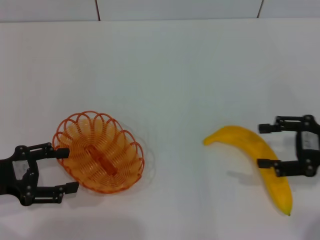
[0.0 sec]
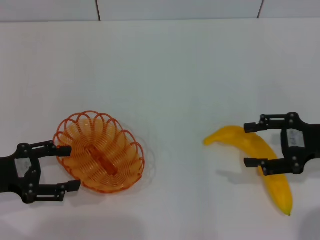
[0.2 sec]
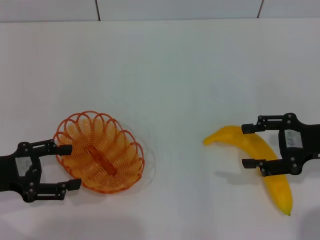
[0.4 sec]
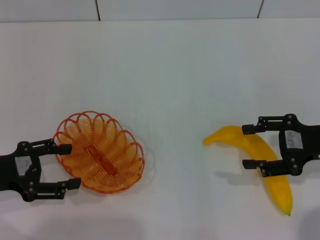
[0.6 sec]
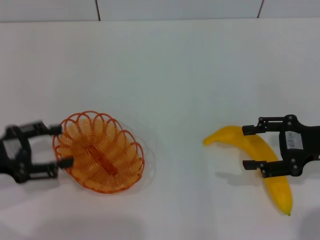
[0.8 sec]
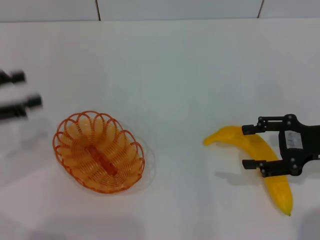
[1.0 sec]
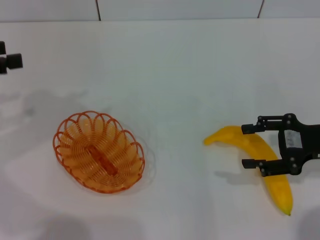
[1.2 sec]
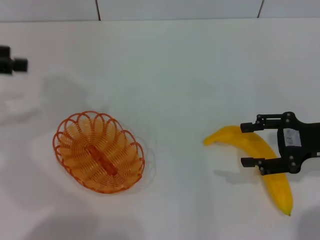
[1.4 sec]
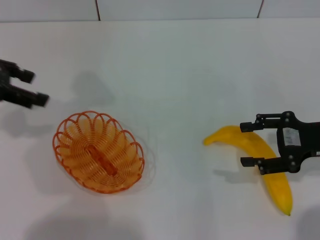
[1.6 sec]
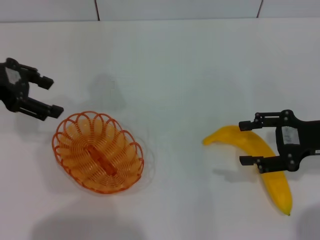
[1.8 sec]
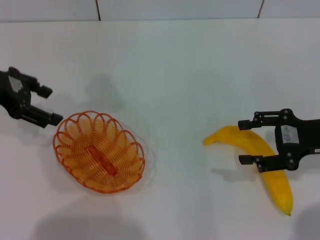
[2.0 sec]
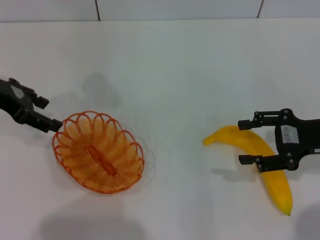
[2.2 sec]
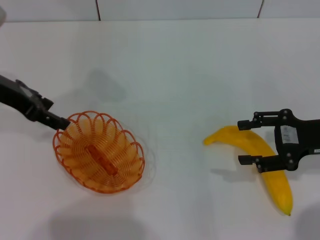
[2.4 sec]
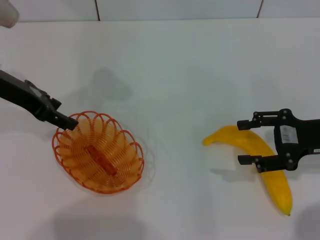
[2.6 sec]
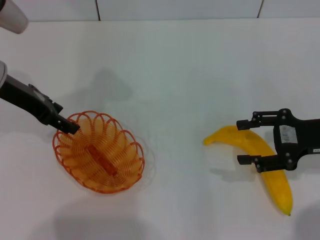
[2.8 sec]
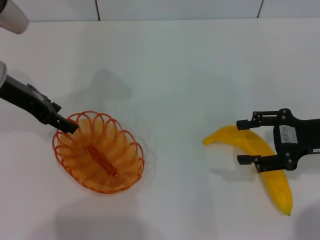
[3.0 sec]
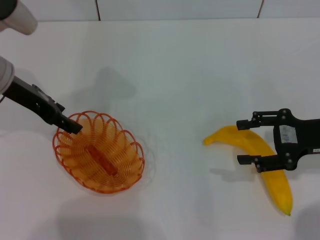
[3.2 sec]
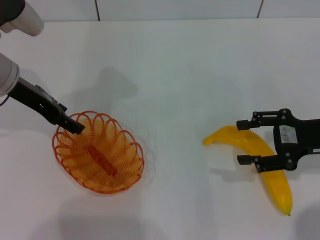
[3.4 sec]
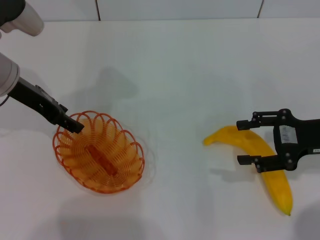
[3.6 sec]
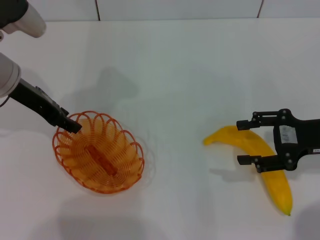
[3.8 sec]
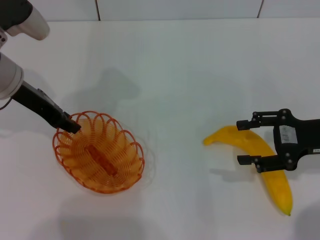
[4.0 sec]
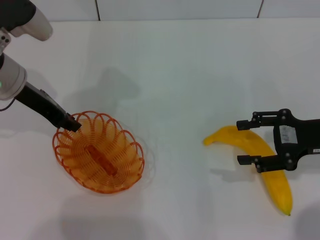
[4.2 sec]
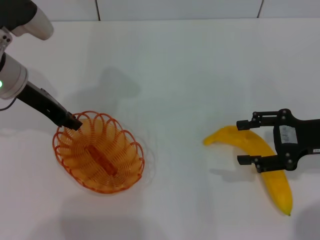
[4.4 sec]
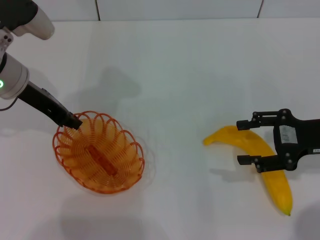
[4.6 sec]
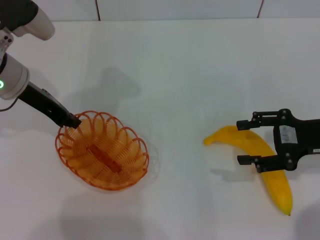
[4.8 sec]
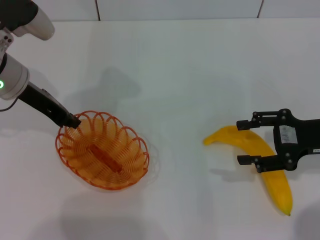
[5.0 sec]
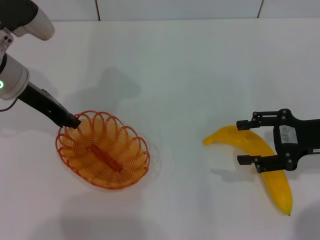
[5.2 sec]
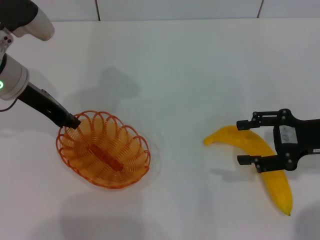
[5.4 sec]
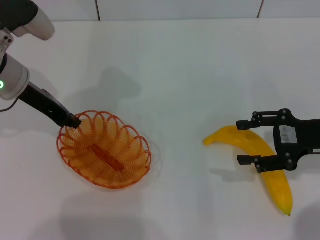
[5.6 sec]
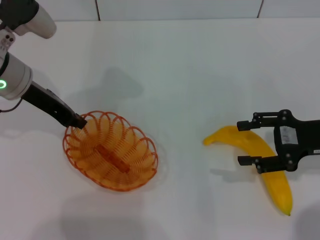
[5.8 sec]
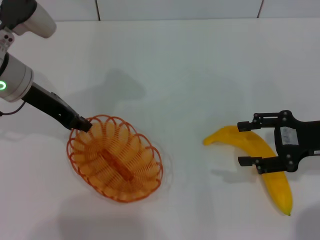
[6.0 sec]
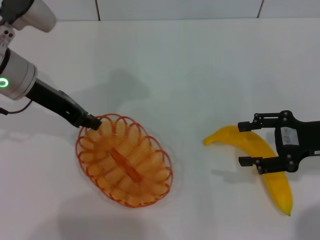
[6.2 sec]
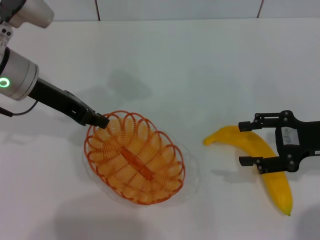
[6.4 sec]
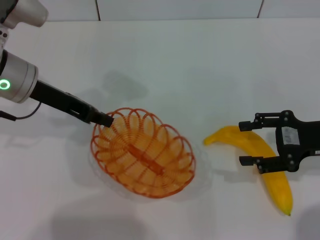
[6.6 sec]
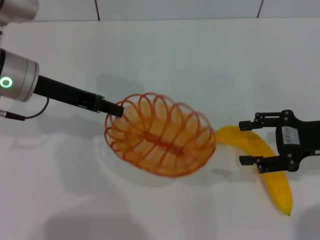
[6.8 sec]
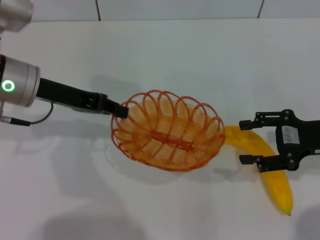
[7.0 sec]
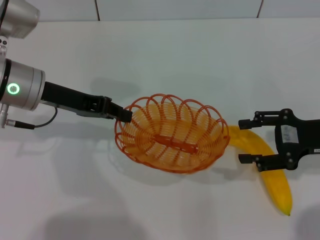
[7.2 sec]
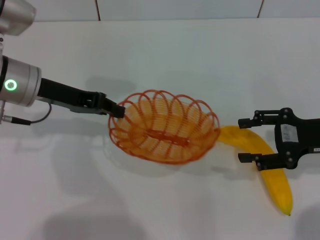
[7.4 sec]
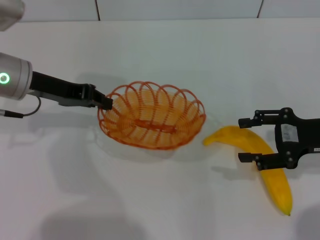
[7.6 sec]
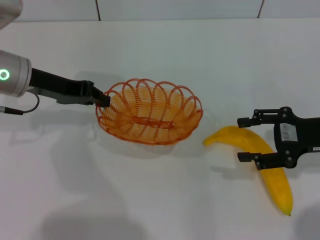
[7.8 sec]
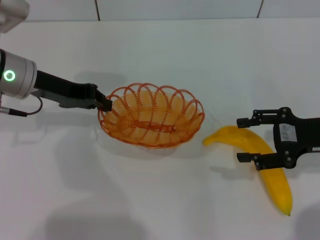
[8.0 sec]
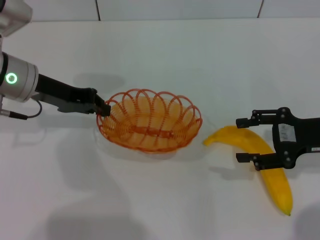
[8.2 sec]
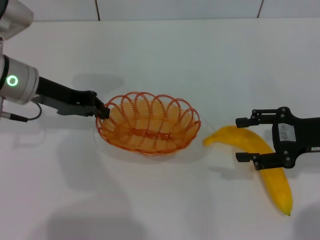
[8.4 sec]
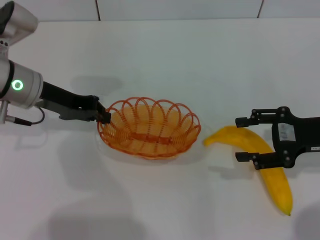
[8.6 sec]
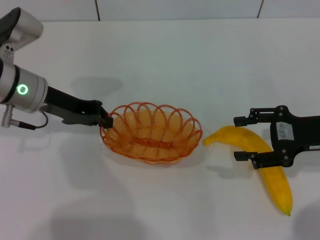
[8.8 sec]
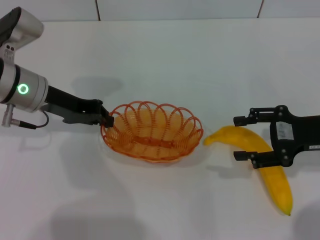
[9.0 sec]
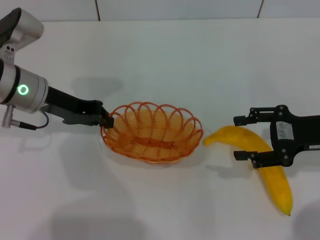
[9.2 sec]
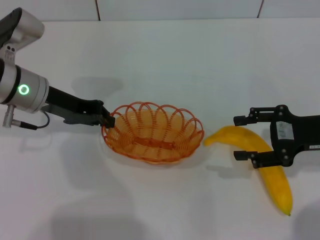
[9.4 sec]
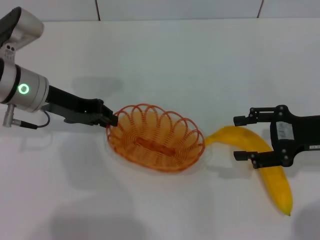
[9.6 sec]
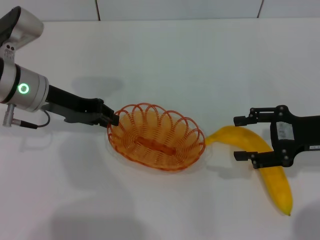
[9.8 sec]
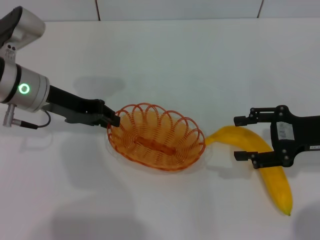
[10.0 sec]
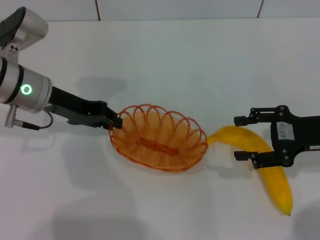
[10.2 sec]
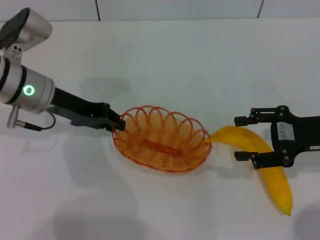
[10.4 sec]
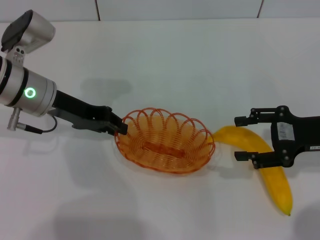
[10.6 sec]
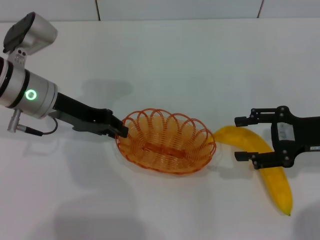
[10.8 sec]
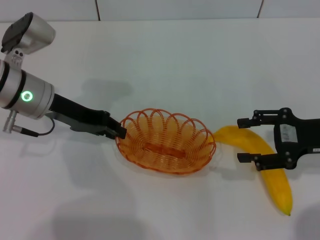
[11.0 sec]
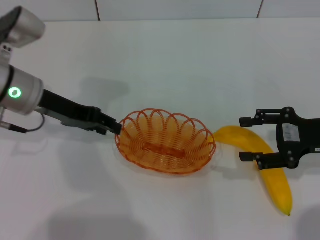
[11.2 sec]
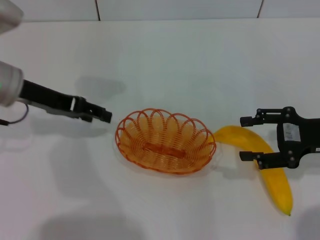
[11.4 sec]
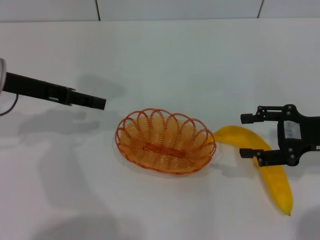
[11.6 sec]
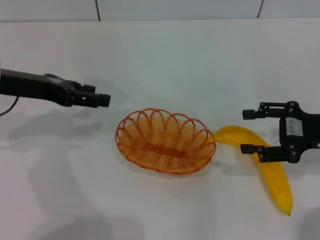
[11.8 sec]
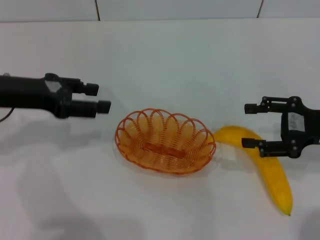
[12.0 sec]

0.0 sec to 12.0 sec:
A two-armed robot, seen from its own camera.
Step, 0.0 sec to 6.8 sec: Pick up the basket with the left gripper.
Step, 7.0 sec to 11.4 sec: Place the basket in the center of view with the left gripper.
0.0 sec to 1.6 sec: The left gripper travels upward and forward by some 20 cm.
1.6 sec to 3.0 sec: The left gripper moves to the right and downward, roughly 10 cm.
3.0 sec to 4.4 sec: The left gripper closes its fingers.
4.4 sec to 6.0 sec: The grippers stay close to where they were, moving slightly.
7.6 sec to 9.0 sec: The grippers stay close to where they were, moving slightly.
9.0 sec to 10.4 sec: Both grippers stay about where they are.
10.4 sec to 12.0 sec: The left gripper is displaced to the left by approximately 5 cm, and opens up.

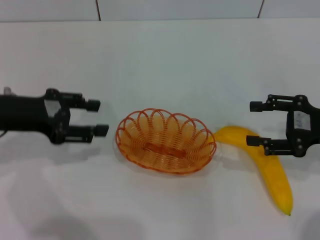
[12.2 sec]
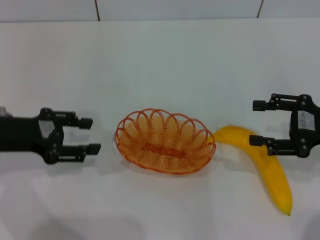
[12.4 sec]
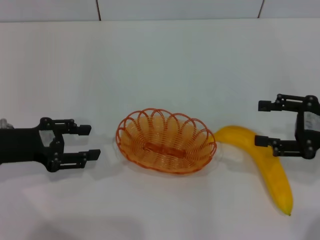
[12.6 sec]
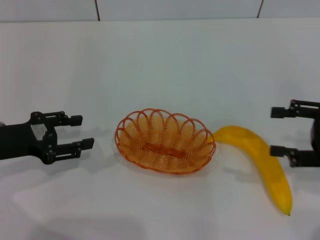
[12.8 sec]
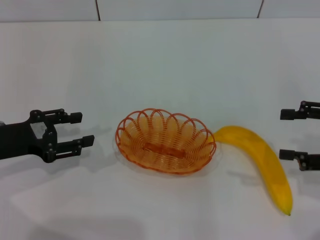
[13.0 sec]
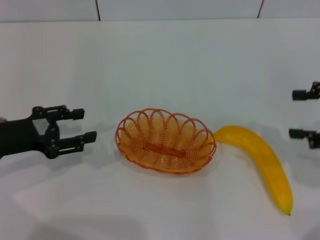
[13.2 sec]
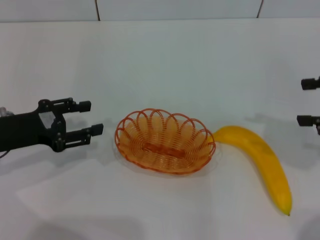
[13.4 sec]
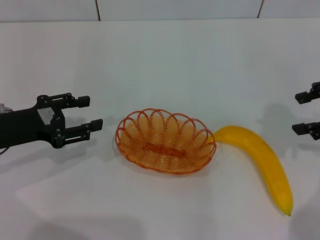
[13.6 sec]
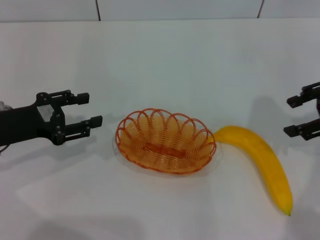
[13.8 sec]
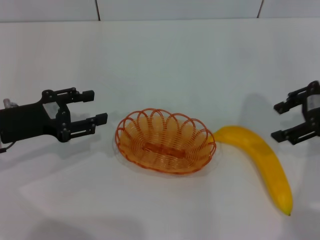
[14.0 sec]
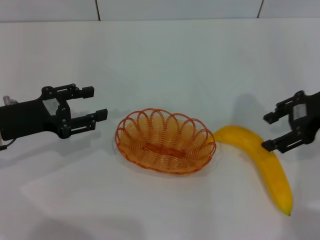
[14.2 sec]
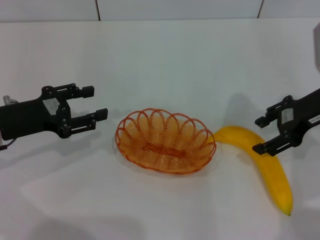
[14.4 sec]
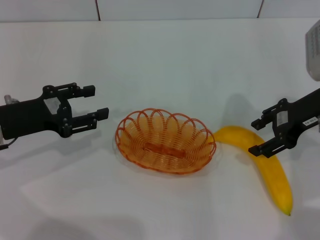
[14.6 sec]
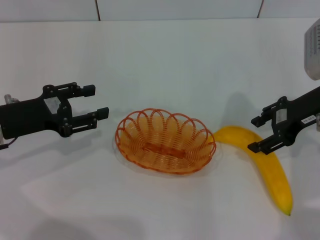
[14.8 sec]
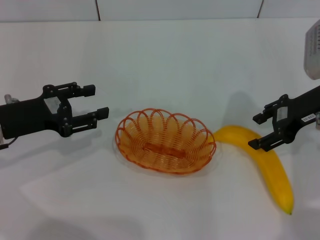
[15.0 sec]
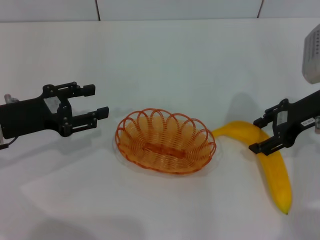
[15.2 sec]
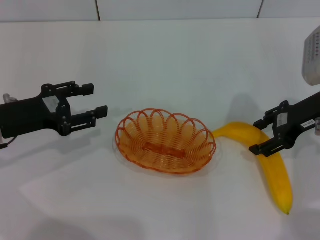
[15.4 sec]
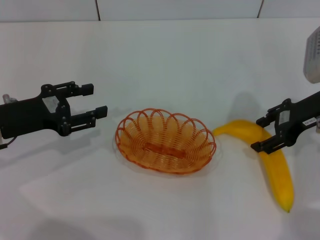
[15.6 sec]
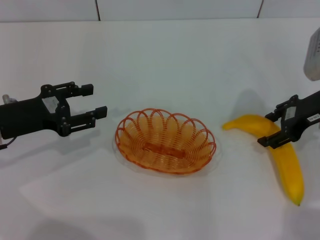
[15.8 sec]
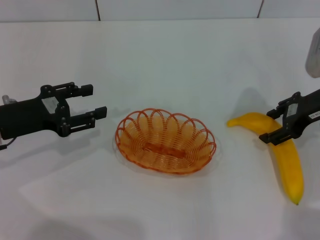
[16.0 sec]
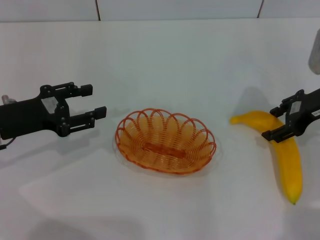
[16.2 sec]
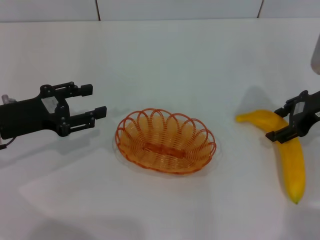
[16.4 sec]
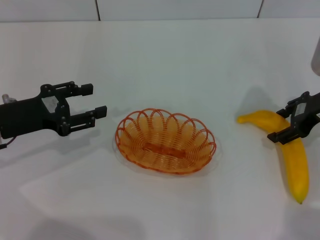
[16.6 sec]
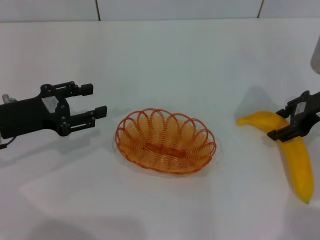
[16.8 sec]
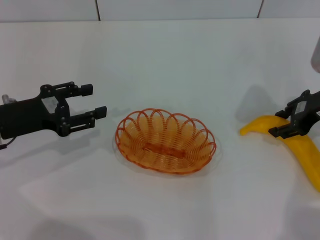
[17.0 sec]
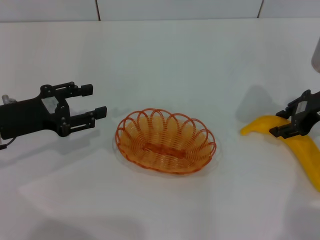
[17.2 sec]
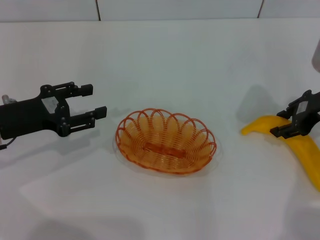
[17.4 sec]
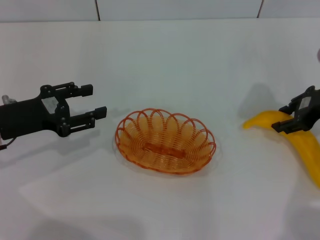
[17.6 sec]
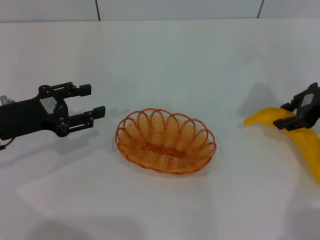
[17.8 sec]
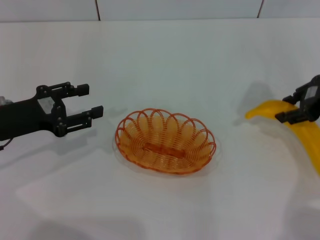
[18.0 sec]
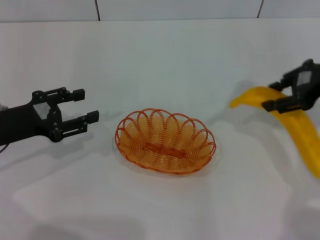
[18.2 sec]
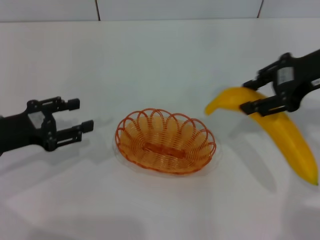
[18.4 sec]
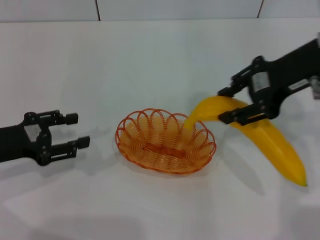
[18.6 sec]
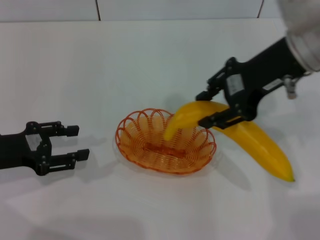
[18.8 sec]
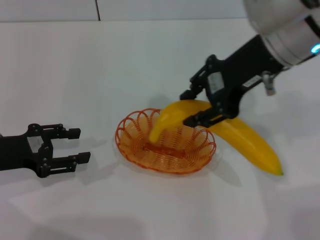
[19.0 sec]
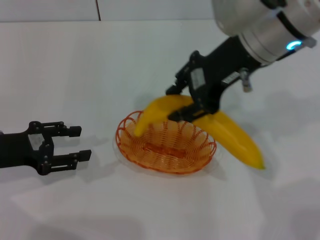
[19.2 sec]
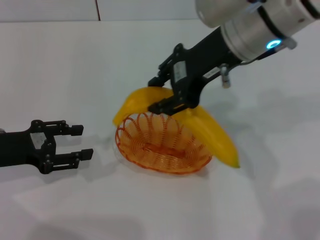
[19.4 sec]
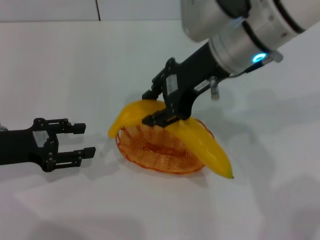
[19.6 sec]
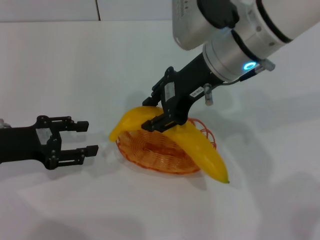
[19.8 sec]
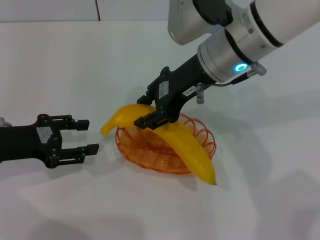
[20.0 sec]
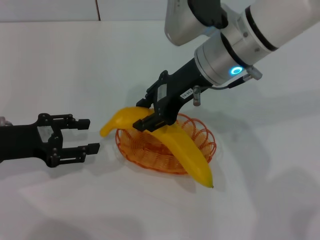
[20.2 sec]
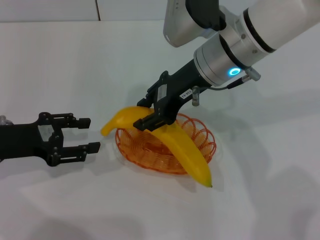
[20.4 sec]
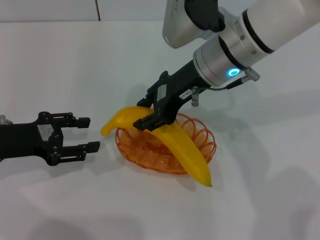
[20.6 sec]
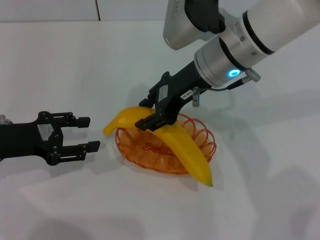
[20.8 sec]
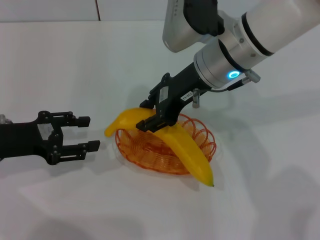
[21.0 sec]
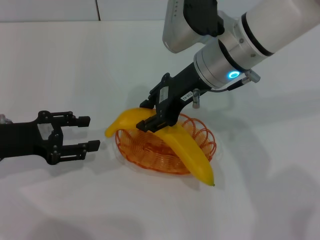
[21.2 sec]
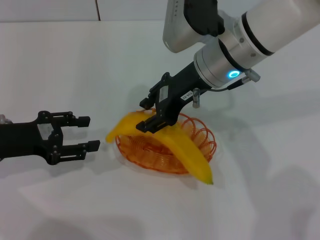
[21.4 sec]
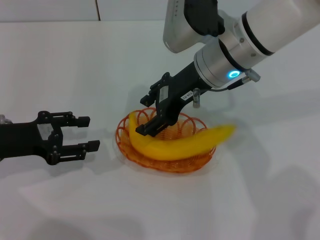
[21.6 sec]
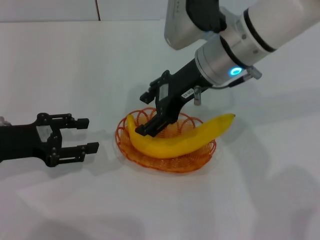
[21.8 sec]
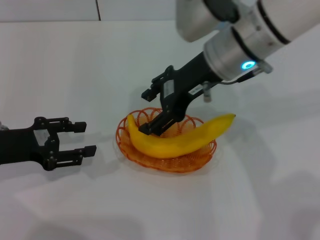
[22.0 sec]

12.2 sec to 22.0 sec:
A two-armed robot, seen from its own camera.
Step, 12.2 sec to 18.0 sec: Pick up the banana with the right gripper.
Step, 18.2 sec to 21.8 sec: Place the banana into the basket with the right gripper.
12.2 sec to 13.6 sec: The left gripper travels downward by roughly 5 cm; the right gripper goes some 10 cm upward.
13.6 sec to 15.0 sec: The right gripper shifts some 10 cm to the left and downward.
15.0 sec to 16.4 sec: The grippers stay close to where they were, moving slightly.
16.4 sec to 17.8 sec: The right gripper closes.
17.8 sec to 19.2 sec: The right gripper is displaced to the left and upward by roughly 20 cm.
19.2 sec to 20.6 sec: The right gripper goes approximately 5 cm downward.
20.6 sec to 22.0 sec: The right gripper opens up.
